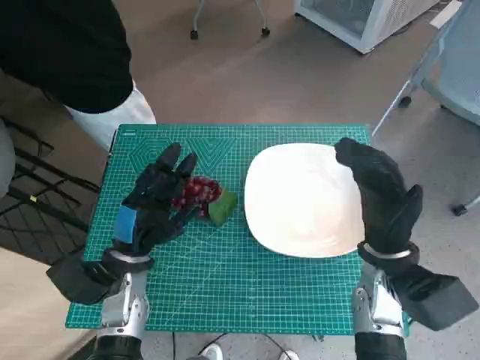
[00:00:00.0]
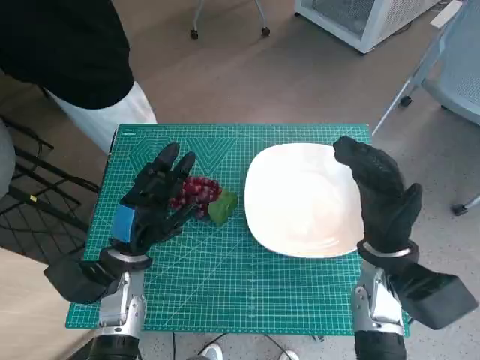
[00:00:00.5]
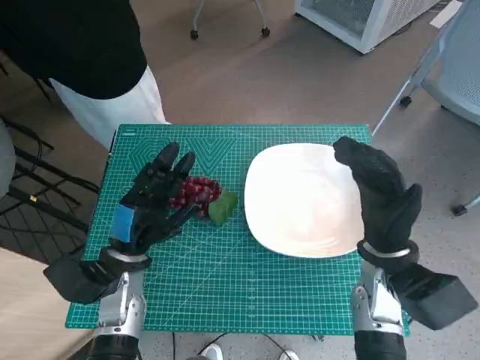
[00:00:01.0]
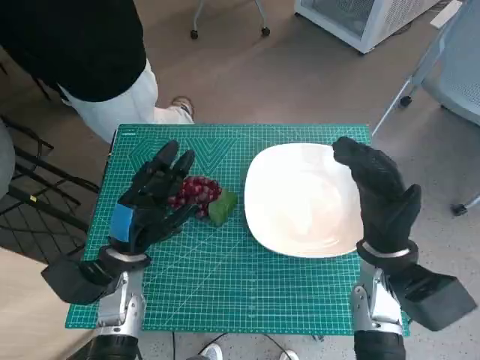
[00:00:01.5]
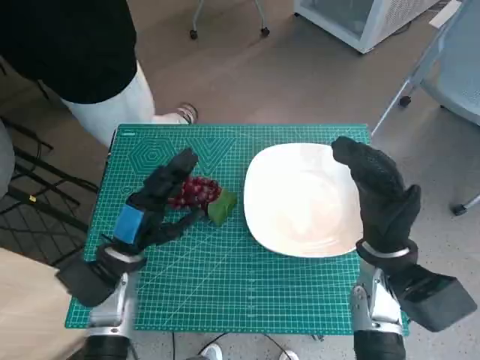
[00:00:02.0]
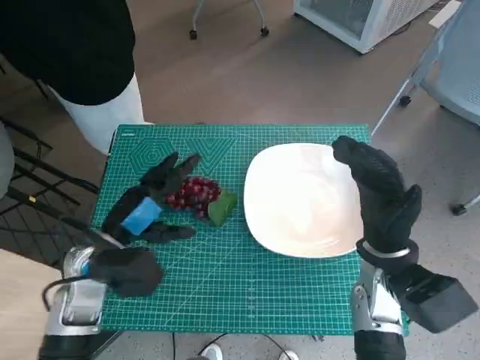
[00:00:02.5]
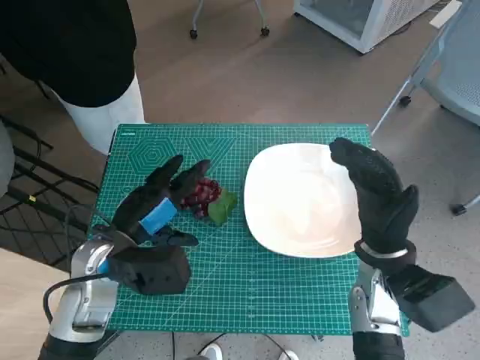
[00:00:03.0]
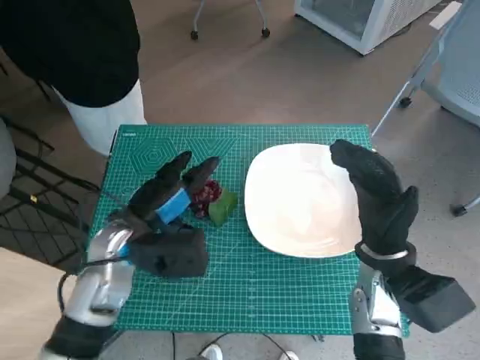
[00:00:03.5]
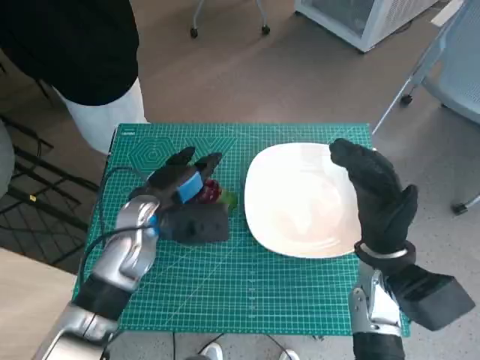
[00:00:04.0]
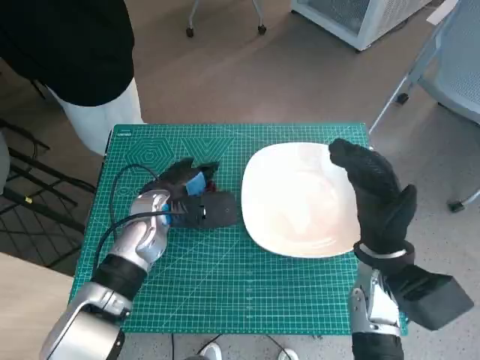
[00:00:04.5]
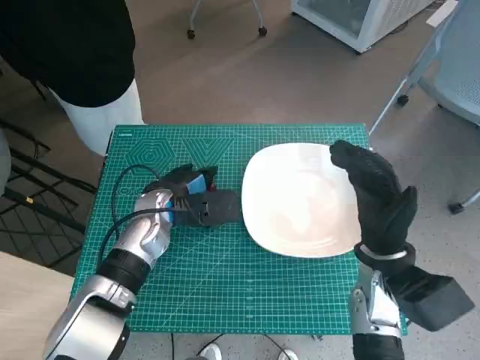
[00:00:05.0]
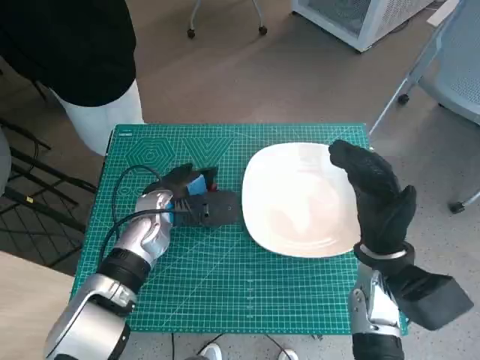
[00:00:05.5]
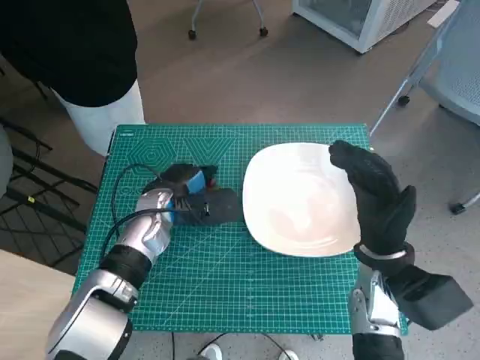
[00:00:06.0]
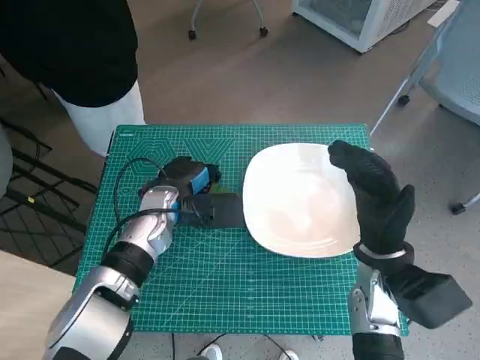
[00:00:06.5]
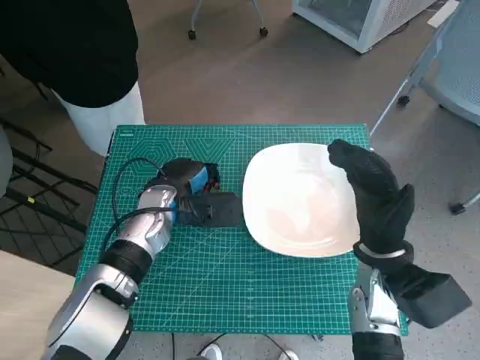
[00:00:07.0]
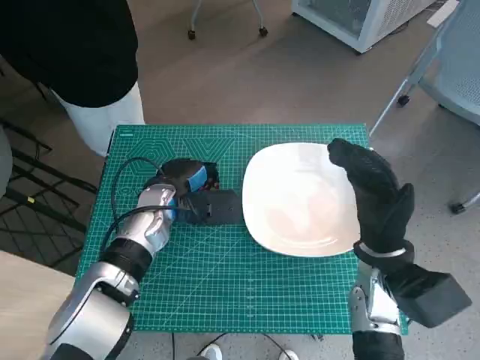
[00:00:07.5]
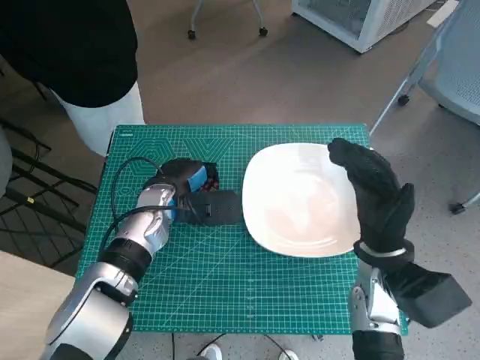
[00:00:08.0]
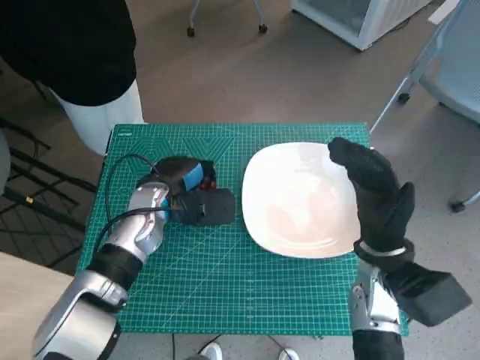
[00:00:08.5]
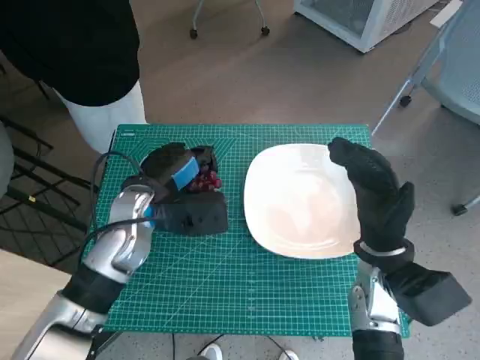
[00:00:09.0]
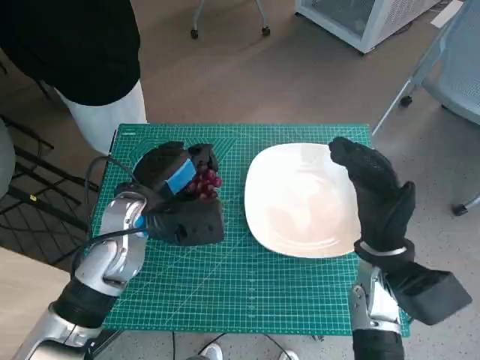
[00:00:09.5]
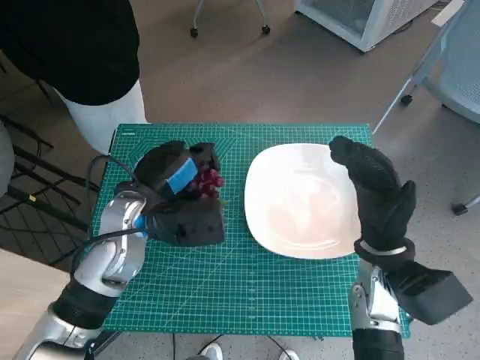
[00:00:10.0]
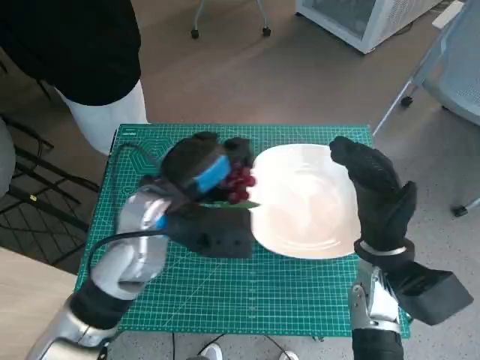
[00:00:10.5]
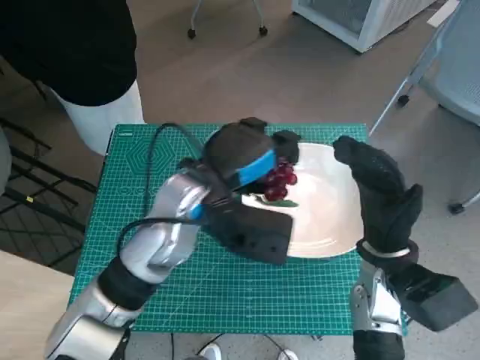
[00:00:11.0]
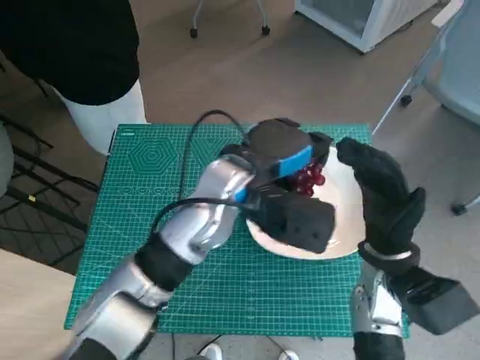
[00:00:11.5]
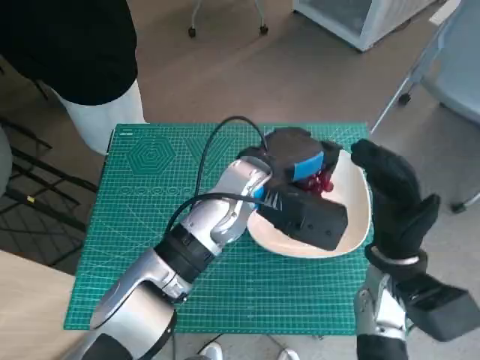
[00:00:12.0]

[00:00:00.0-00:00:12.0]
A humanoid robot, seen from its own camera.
Task of the whole recording: Pick up the grapes and put them on the plate.
Step, 00:00:00.0 to 00:00:07.0: Grasp the grapes with left hand.
00:00:02.0 to 00:00:04.0: The left hand travels forward and upward by approximately 10 cm.
00:00:04.0 to 00:00:06.0: The left hand changes place by some 5 cm.
00:00:06.0 to 00:00:08.0: The hands stay close to where they were, moving slightly.
00:00:08.0 to 00:00:10.0: The left hand is displaced upward and backward by approximately 10 cm.
00:00:10.0 to 00:00:12.0: The left hand is displaced to the right by some 15 cm.

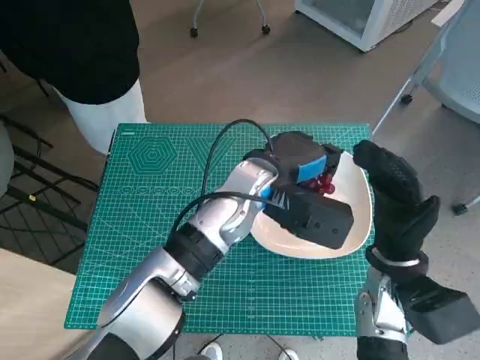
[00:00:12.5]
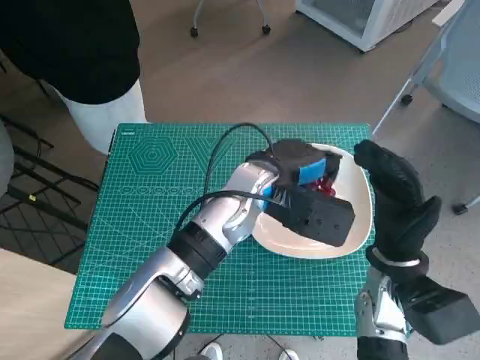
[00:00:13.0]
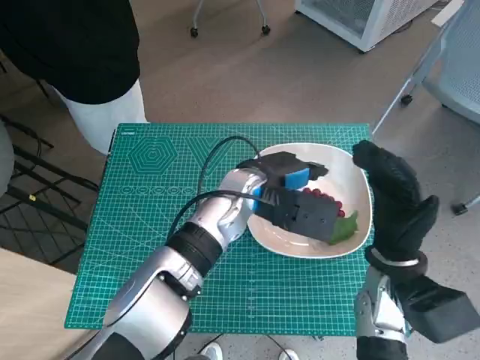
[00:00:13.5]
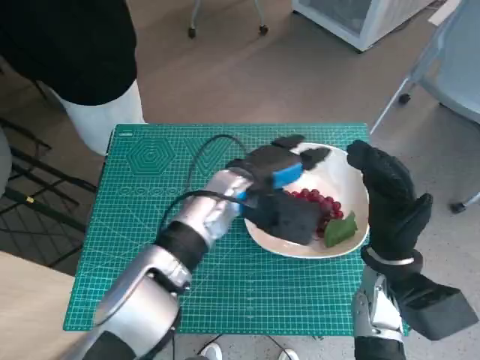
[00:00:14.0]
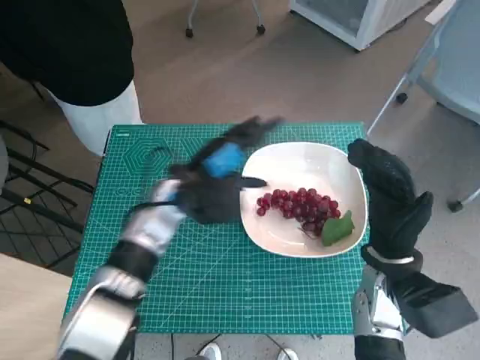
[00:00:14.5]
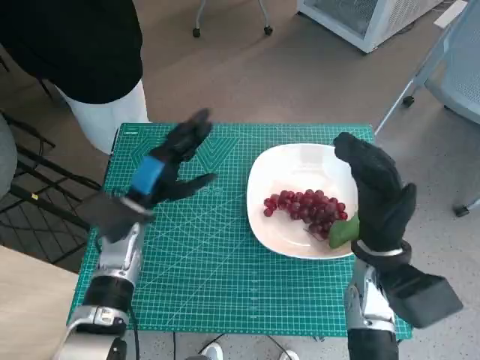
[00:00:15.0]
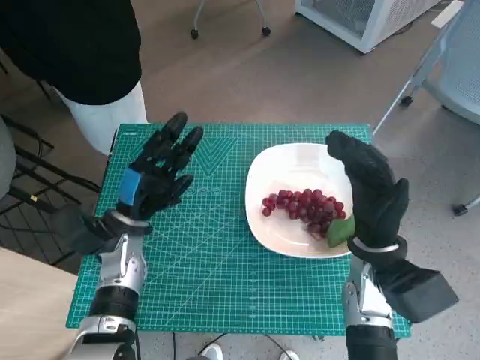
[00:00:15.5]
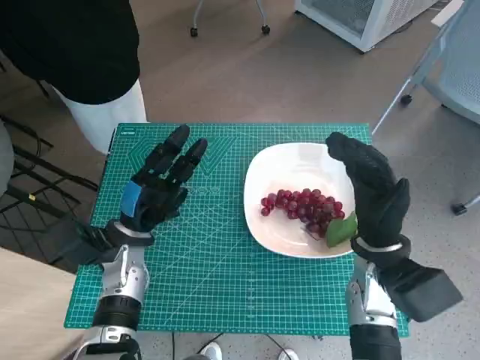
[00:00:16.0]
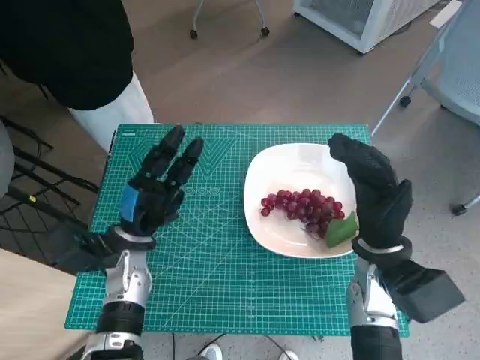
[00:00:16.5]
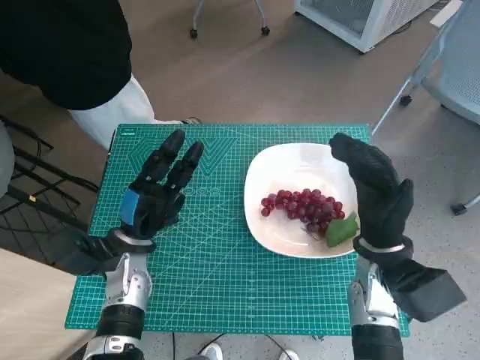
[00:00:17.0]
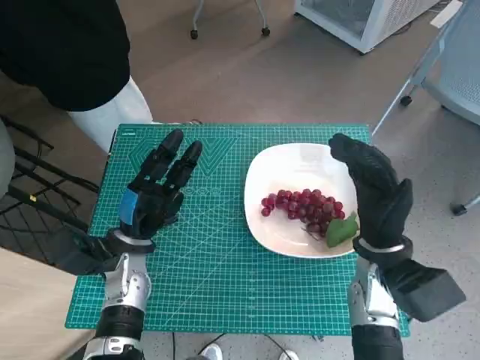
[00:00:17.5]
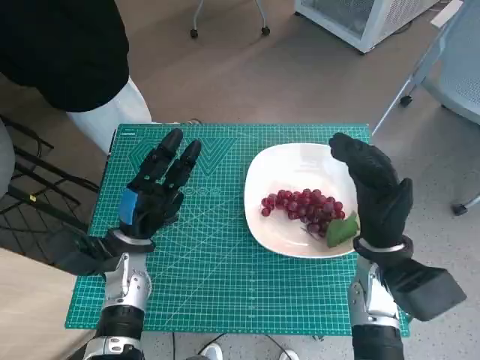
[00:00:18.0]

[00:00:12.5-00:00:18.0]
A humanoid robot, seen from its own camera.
Task of the whole recording: Pick up the grapes and put them on the plate.
00:00:12.5 to 00:00:14.5: The left hand is displaced to the left by some 10 cm.
00:00:14.5 to 00:00:16.0: The left hand shifts approximately 15 cm to the left, downward and backward.
00:00:16.0 to 00:00:18.0: Neither hand changes place.

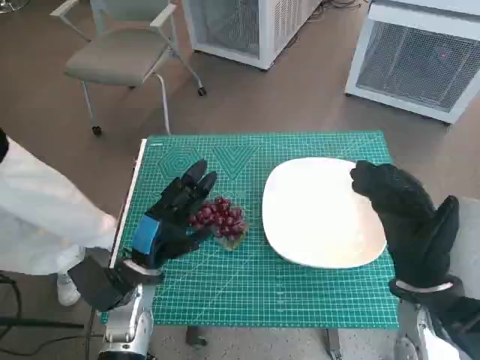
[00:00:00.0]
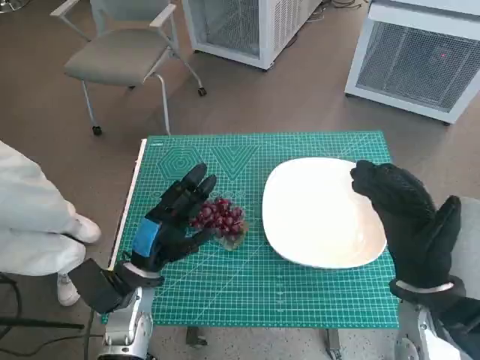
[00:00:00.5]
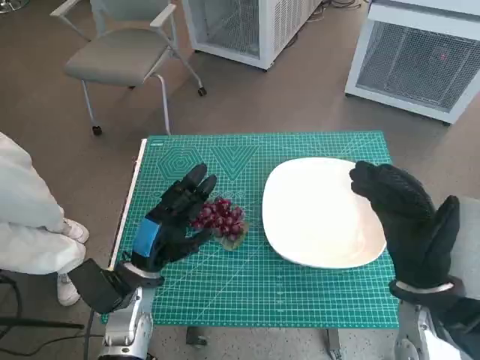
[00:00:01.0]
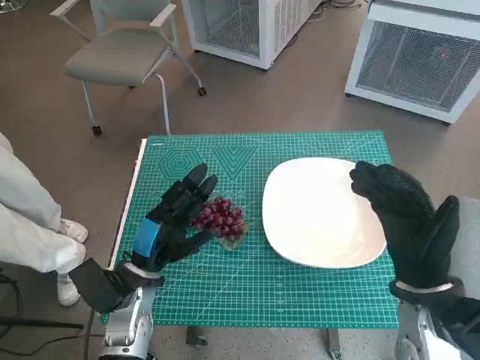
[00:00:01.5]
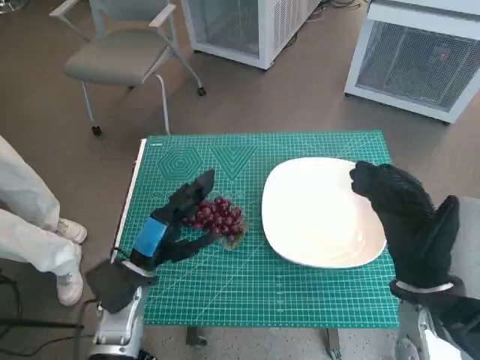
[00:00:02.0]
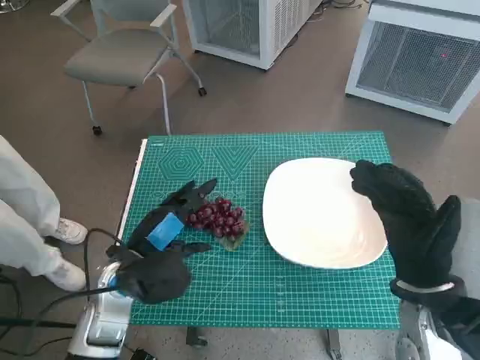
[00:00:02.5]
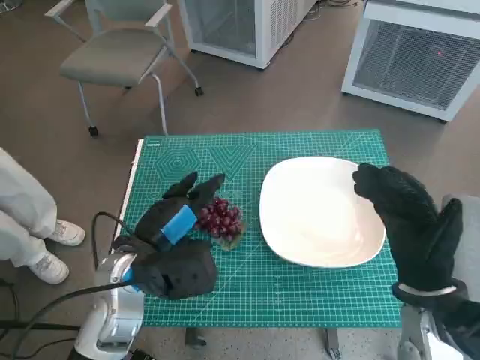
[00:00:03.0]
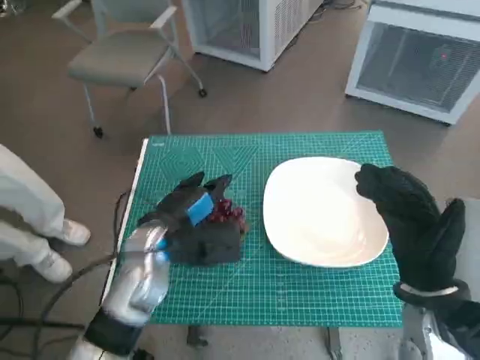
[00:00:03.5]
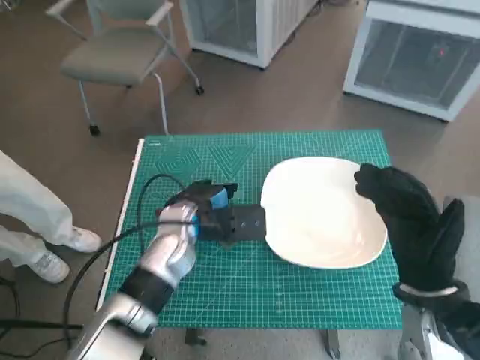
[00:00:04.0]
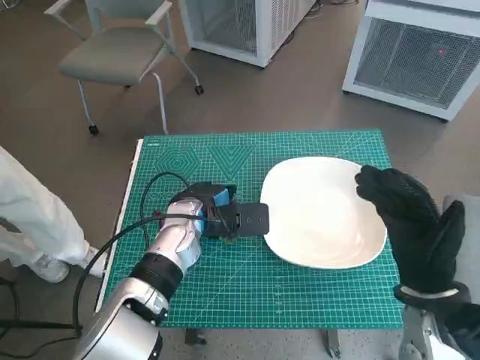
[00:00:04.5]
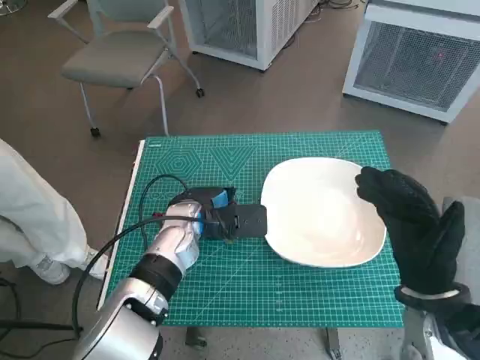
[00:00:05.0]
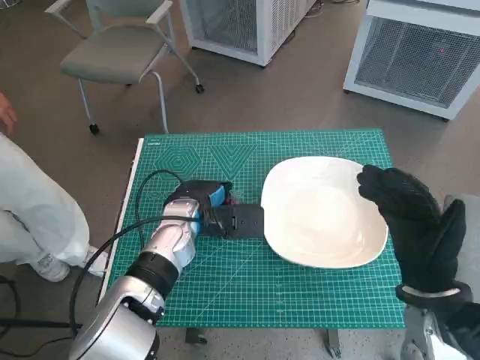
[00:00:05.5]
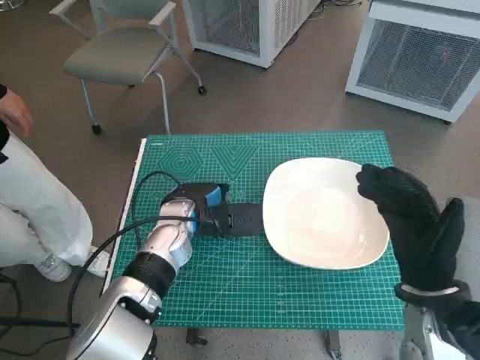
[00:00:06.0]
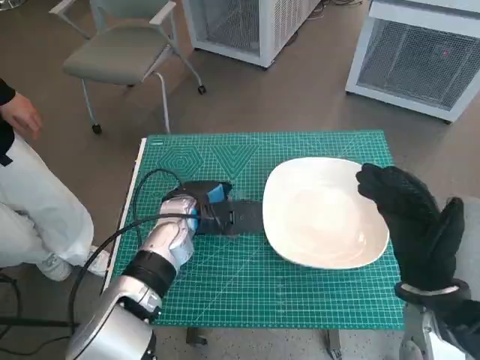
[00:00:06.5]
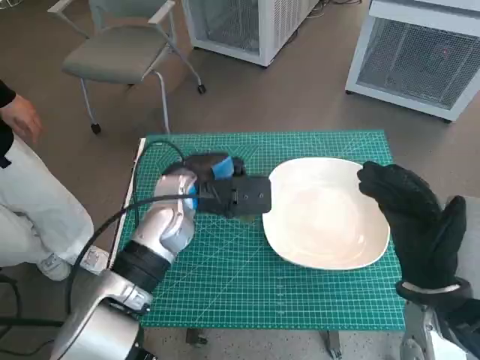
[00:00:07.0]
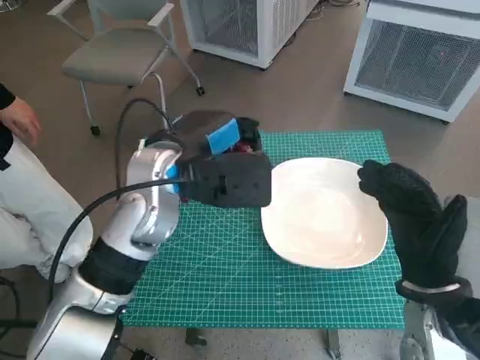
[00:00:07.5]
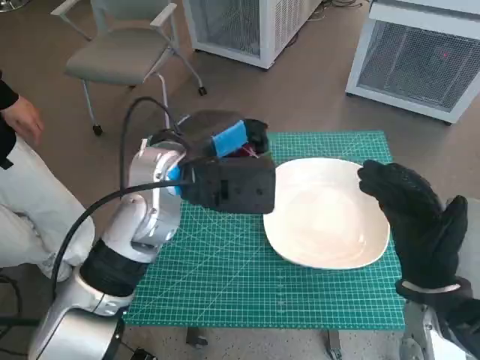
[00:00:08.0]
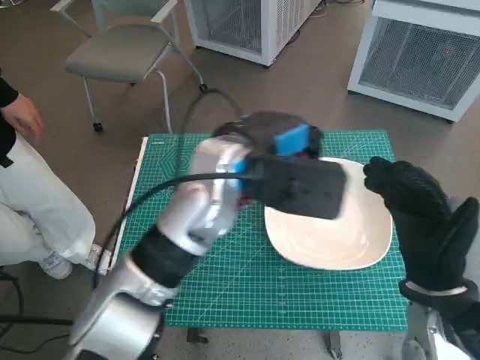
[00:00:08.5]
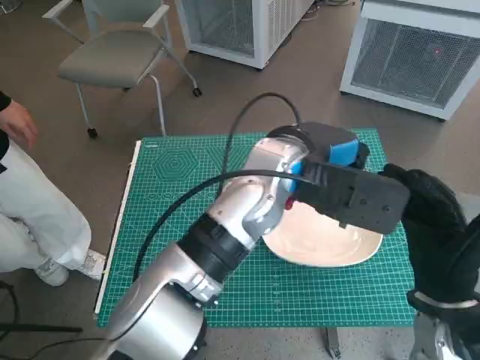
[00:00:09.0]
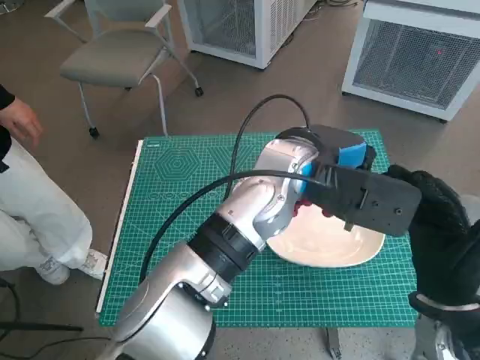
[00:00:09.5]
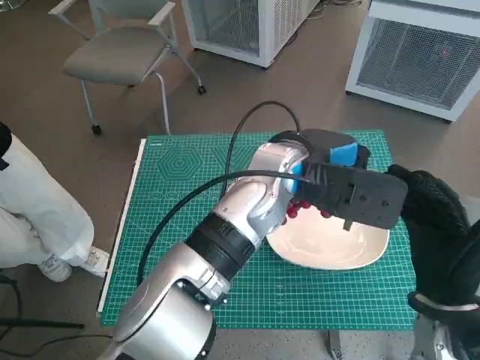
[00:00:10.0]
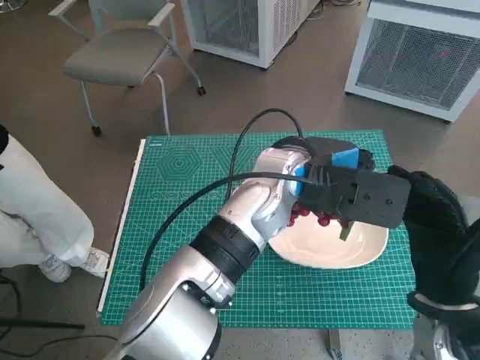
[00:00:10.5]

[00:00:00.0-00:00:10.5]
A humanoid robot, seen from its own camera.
Task of the whole recording: Pick up the grapes and put them on the plate.
Step, 00:00:00.0 to 00:00:05.5: Grasp the grapes with left hand.
00:00:02.0 to 00:00:04.0: The left hand shifts approximately 10 cm forward and to the right.
00:00:04.0 to 00:00:06.5: The hands make only small movements.
00:00:06.5 to 00:00:08.5: The left hand shifts approximately 15 cm upward and to the right.
00:00:08.5 to 00:00:10.5: The left hand goes some 5 cm to the right.
